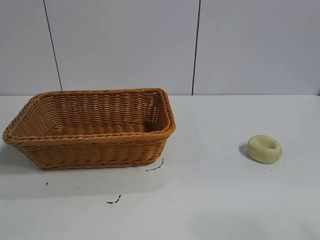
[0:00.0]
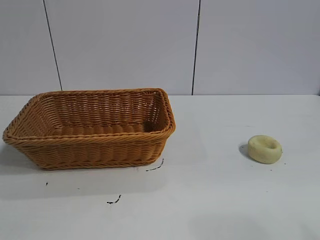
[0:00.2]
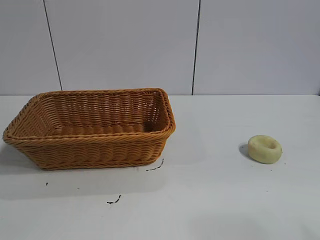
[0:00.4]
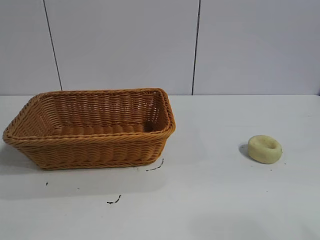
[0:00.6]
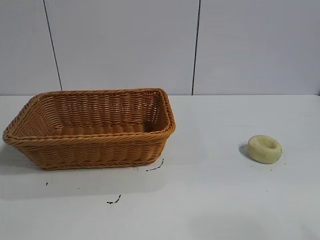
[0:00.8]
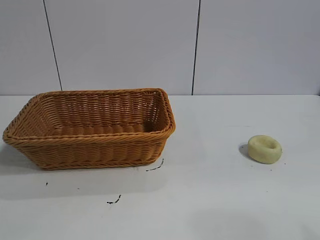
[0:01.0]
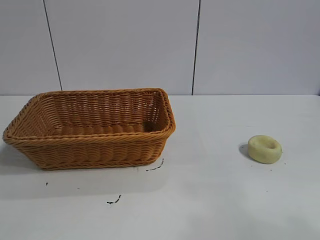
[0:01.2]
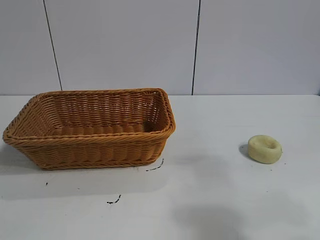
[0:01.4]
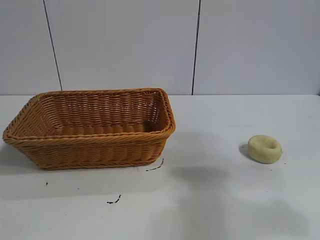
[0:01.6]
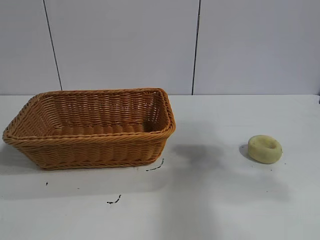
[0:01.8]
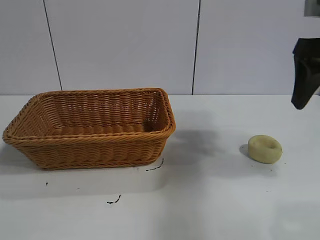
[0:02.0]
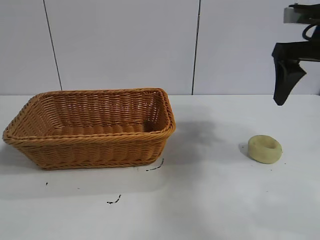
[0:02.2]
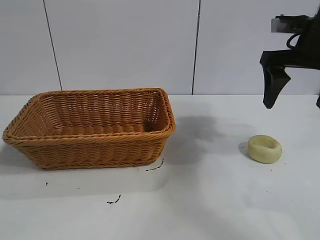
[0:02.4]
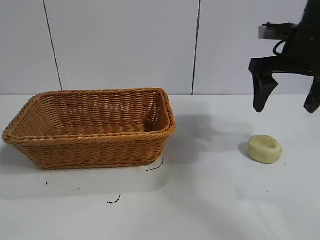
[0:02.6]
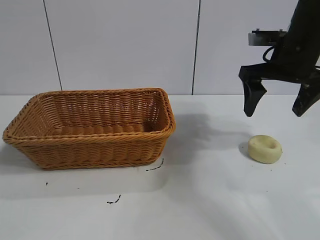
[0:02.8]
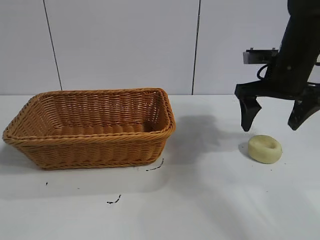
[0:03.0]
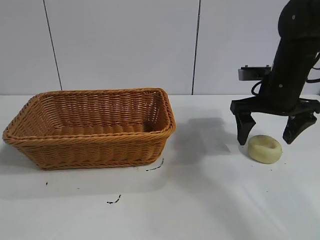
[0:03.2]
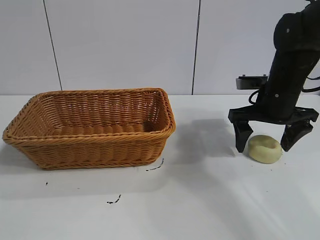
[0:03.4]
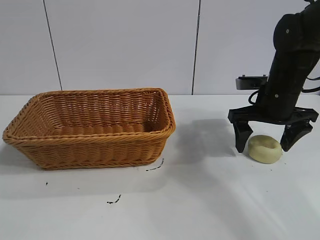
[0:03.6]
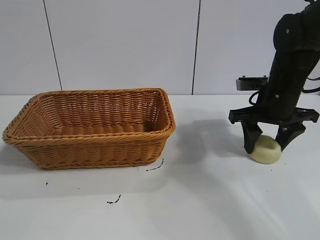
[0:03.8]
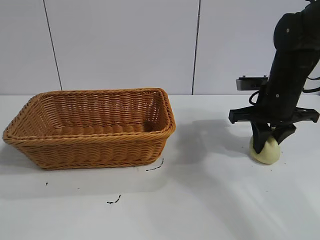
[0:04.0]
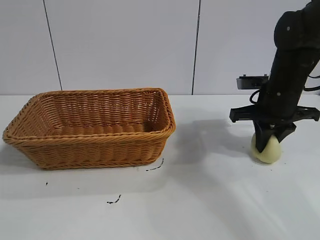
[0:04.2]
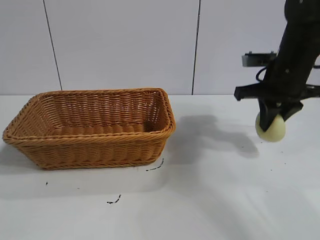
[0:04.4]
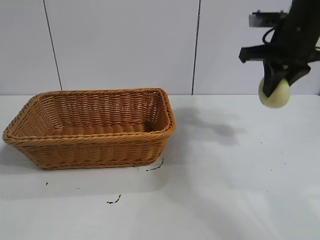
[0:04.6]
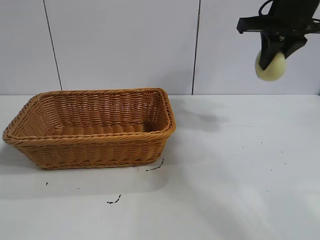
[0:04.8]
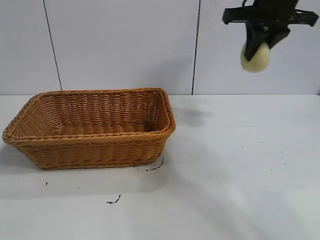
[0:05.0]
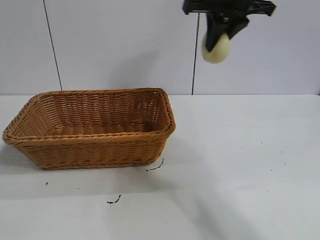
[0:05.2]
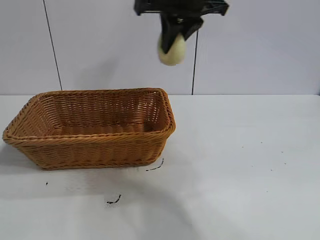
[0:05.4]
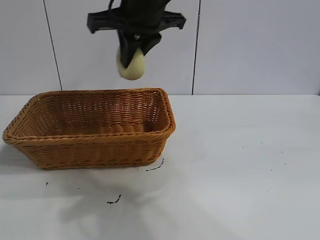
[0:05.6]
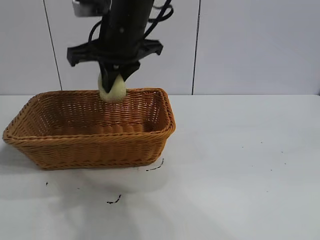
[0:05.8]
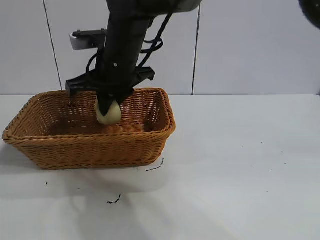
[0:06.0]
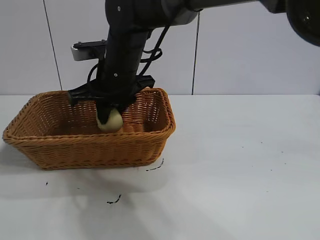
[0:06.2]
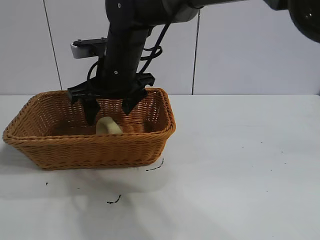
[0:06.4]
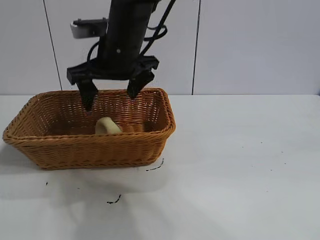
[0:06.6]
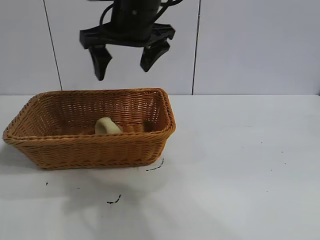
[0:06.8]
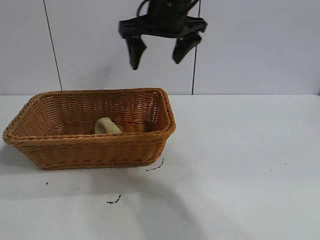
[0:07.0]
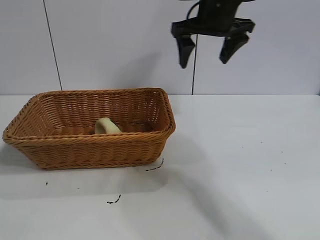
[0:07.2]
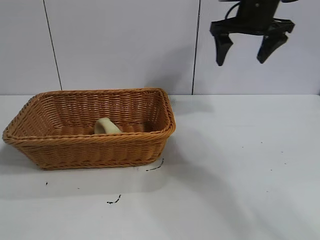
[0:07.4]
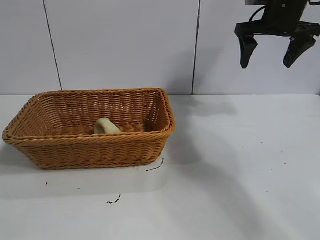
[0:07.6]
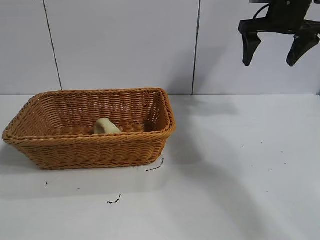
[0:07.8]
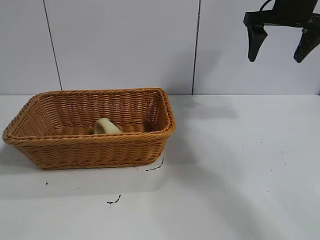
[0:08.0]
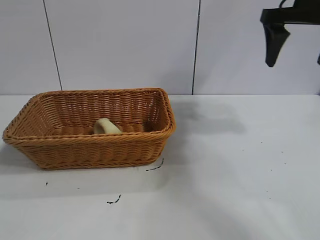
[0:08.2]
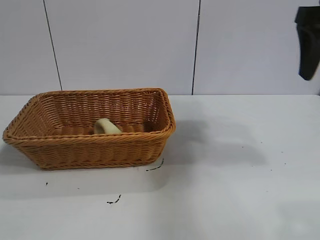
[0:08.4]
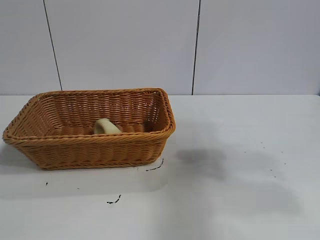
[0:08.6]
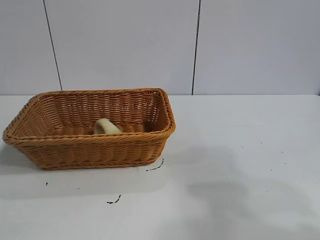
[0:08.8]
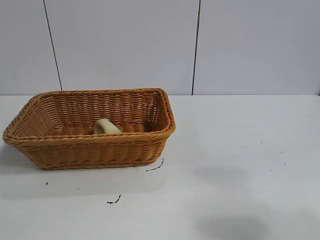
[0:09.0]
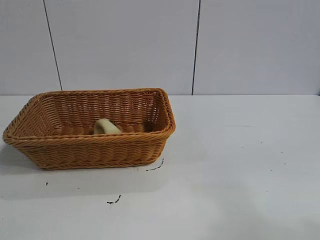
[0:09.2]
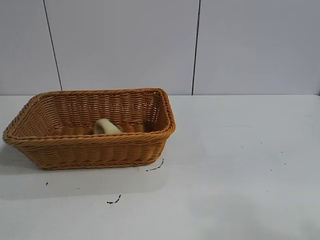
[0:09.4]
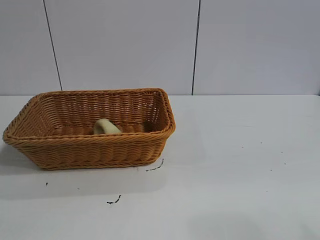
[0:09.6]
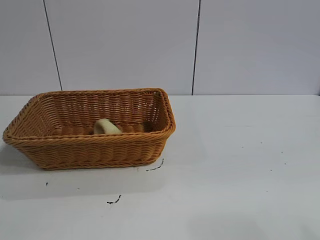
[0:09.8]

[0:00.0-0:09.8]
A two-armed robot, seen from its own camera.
Task of the whole recording: pick up the egg yolk pastry and put it into the basket.
Step, 0:01.0 to 0:04.2: Grasp egg yolk pastry with right gripper.
Step, 0:04.4 to 0:06.4: Place the egg yolk pastry in the basket with right gripper.

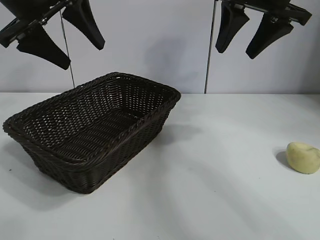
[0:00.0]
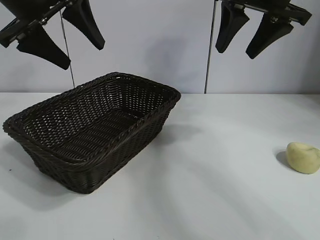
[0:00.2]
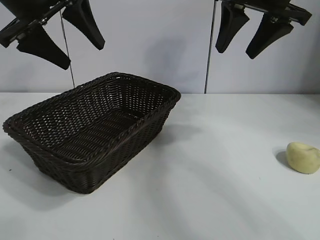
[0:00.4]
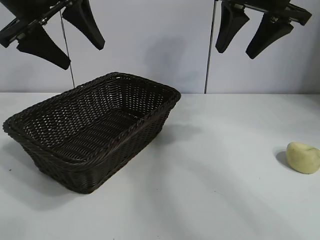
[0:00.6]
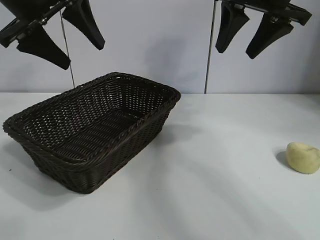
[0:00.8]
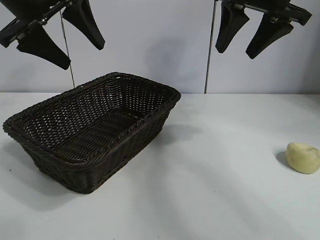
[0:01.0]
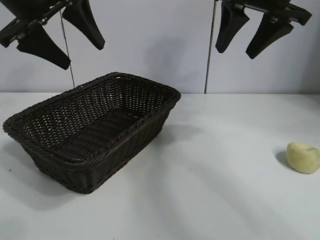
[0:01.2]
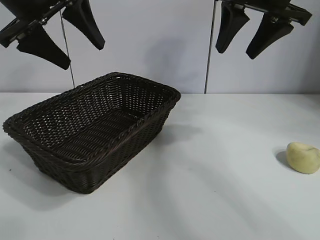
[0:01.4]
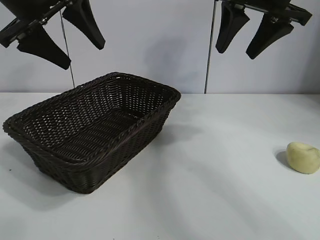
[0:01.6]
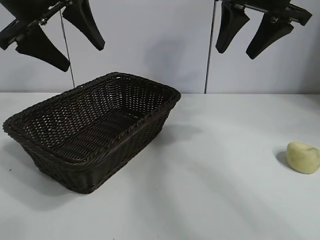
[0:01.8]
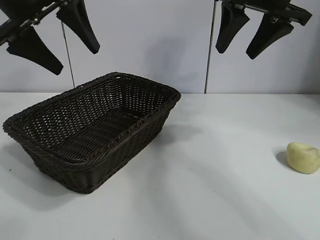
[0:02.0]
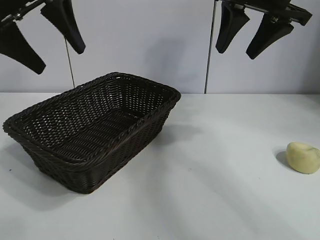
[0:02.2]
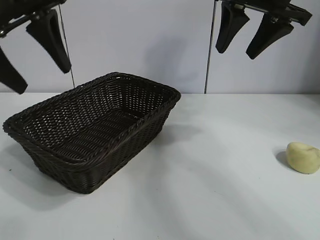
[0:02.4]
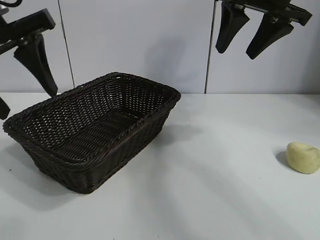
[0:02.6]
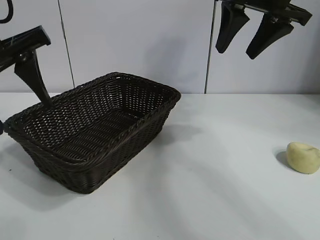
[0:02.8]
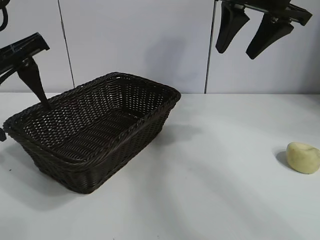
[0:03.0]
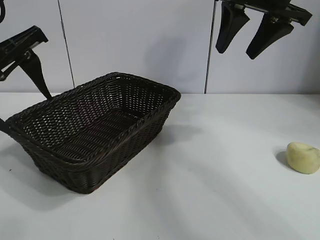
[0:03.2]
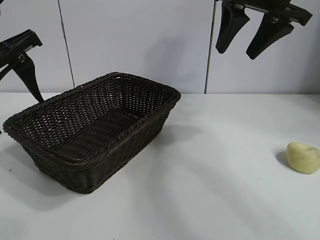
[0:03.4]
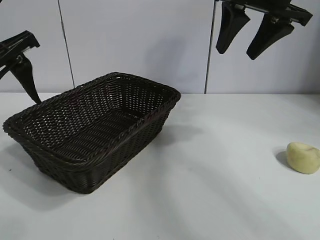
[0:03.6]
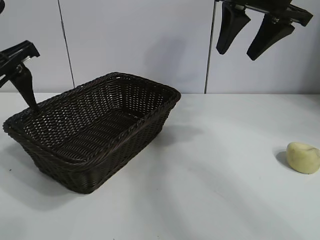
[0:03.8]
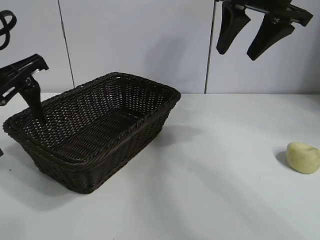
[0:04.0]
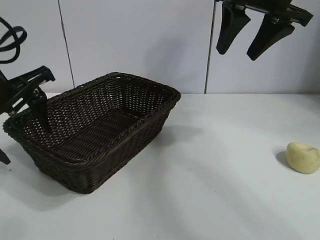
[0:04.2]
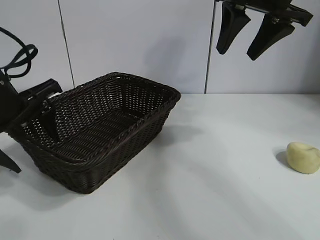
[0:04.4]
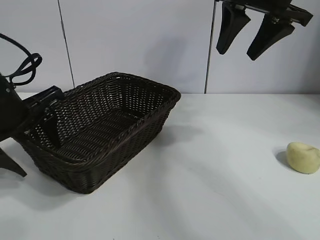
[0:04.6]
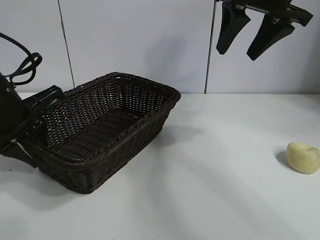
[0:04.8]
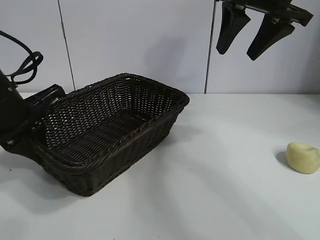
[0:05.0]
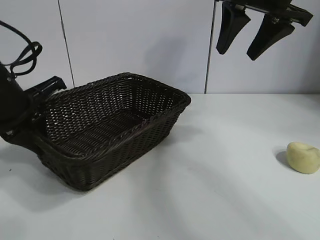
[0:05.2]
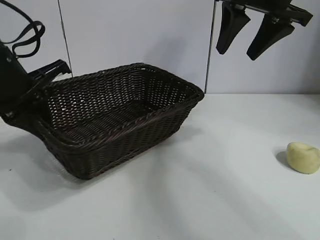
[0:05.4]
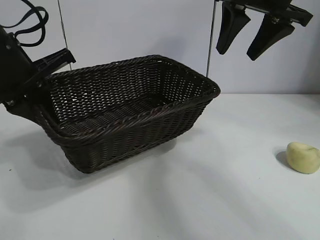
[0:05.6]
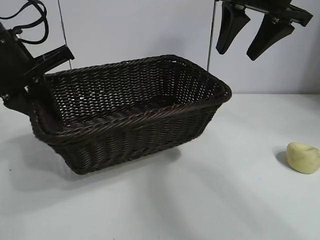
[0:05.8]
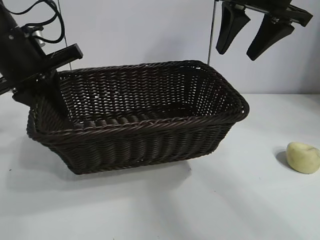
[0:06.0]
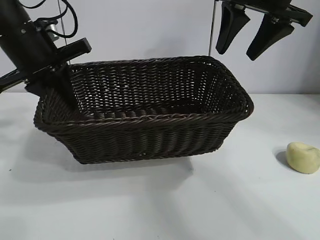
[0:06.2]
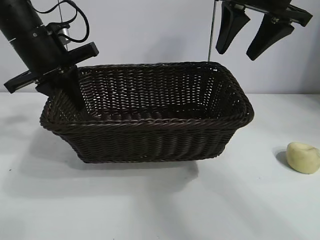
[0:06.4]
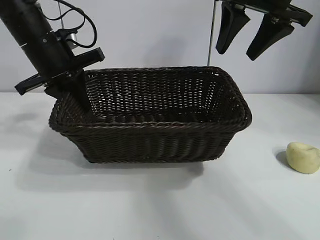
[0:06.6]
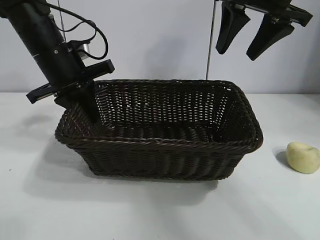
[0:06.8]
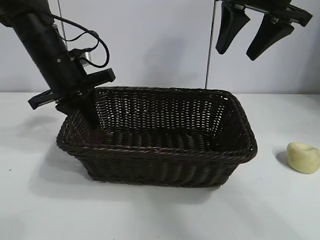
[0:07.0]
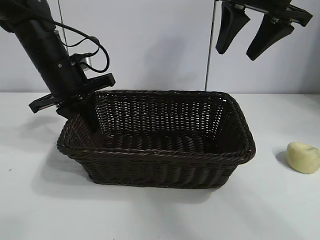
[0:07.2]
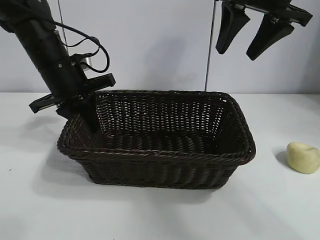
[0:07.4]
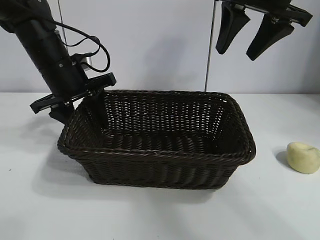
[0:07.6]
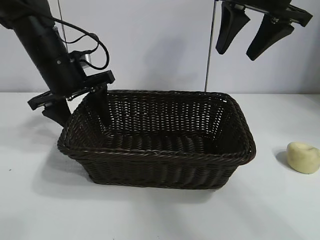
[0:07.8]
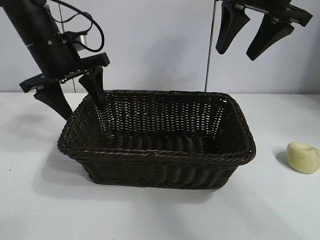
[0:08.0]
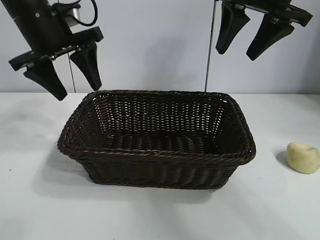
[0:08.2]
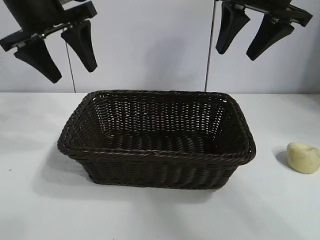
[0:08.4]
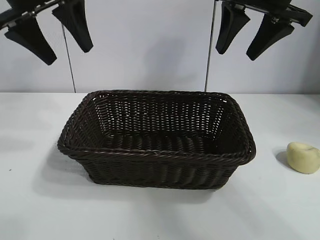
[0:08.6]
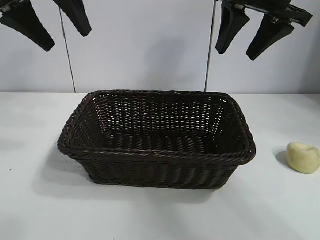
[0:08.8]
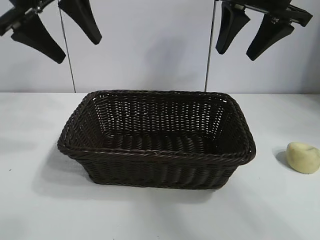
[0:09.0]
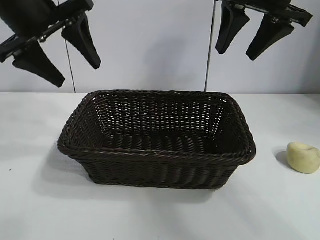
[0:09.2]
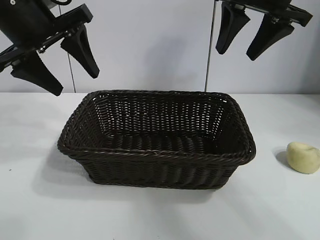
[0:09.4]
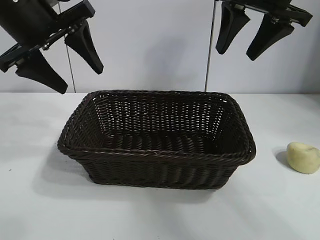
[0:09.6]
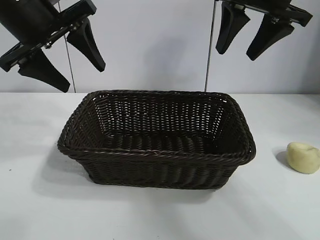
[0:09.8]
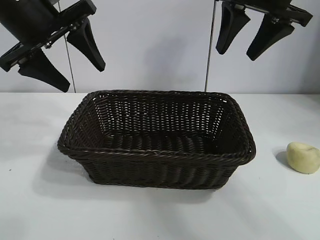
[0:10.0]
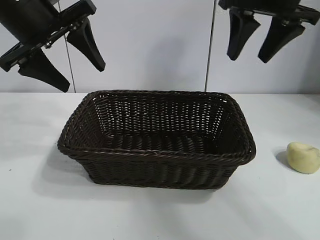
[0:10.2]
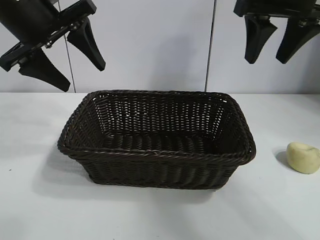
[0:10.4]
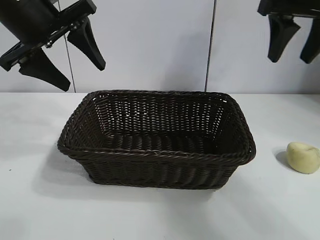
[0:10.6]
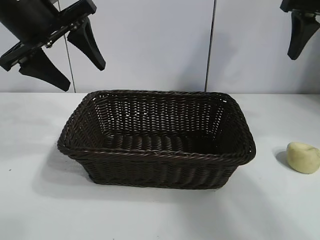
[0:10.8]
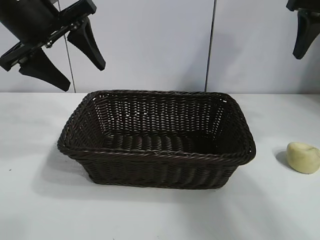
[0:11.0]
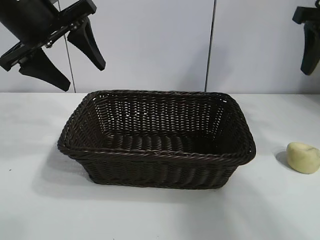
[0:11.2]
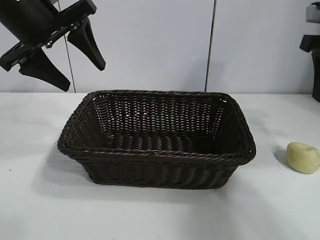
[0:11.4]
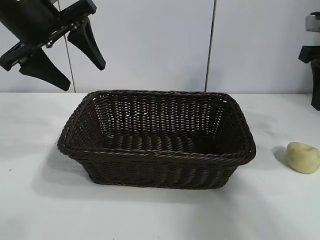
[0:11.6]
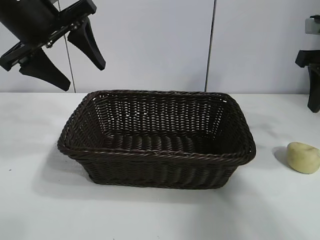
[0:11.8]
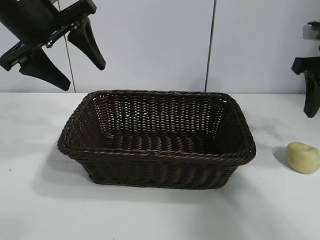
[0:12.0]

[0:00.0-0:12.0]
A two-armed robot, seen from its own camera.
Task of the whole recording: pick up the egg yolk pastry and put it into the basket.
Step, 0:01.6 to 0:04.8: Grasp the basket with left gripper.
Step, 0:05.0 to 0:07.6: Place the basket in the center of view with left gripper.
